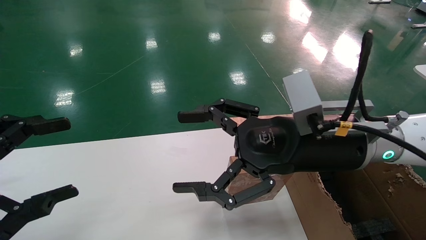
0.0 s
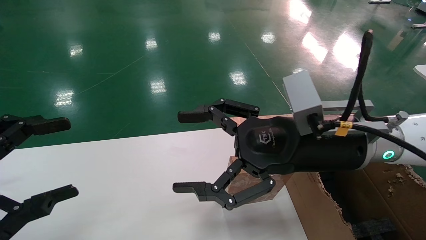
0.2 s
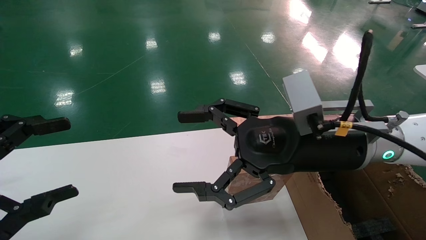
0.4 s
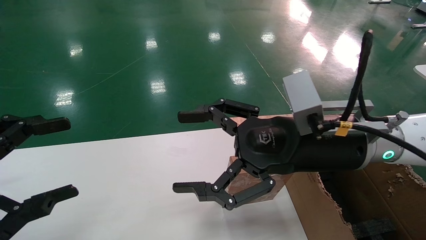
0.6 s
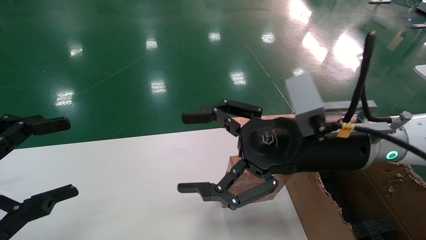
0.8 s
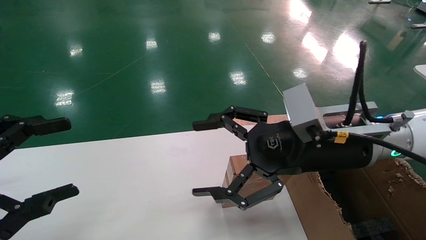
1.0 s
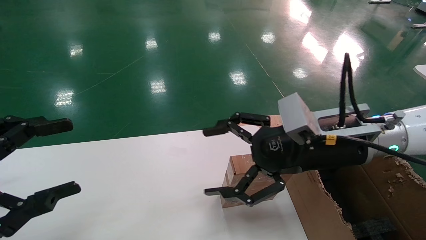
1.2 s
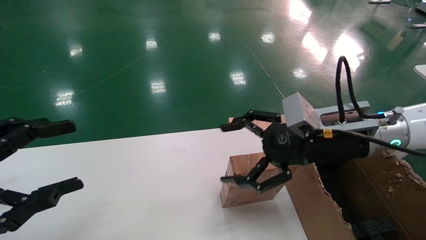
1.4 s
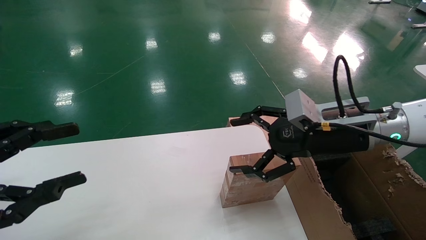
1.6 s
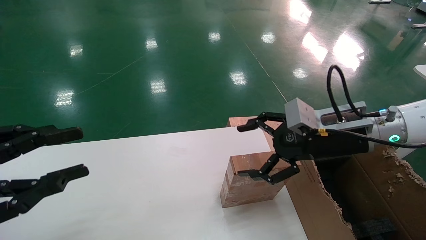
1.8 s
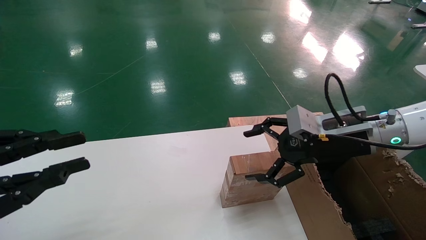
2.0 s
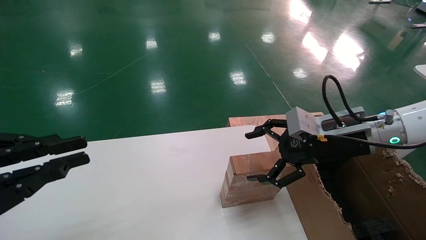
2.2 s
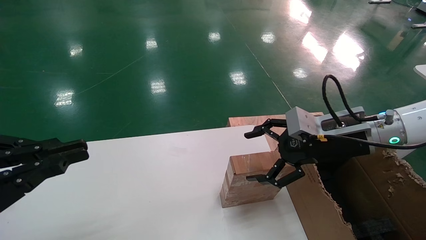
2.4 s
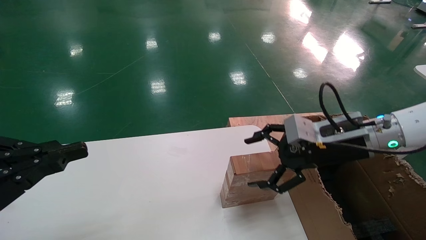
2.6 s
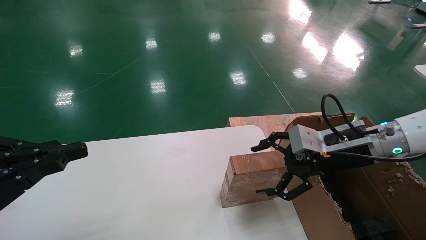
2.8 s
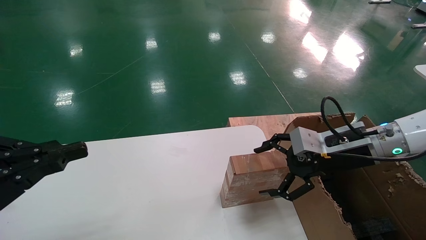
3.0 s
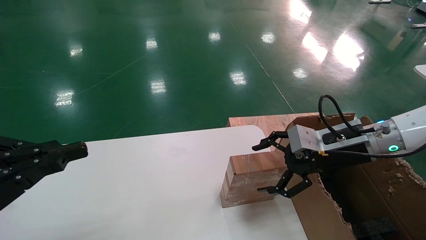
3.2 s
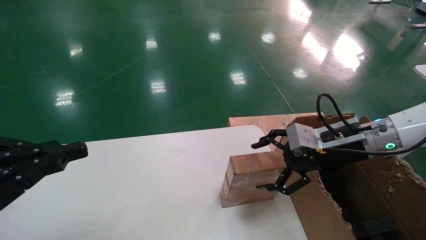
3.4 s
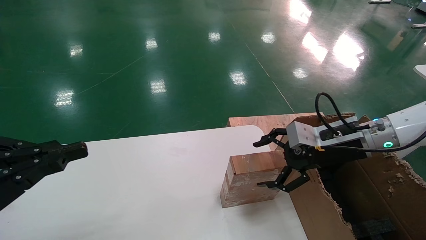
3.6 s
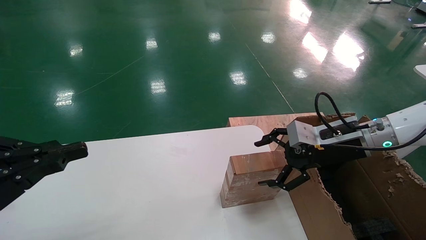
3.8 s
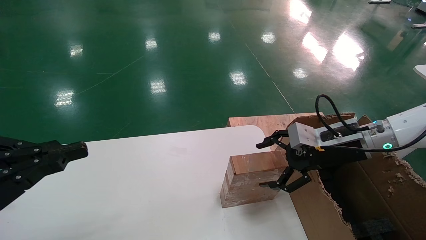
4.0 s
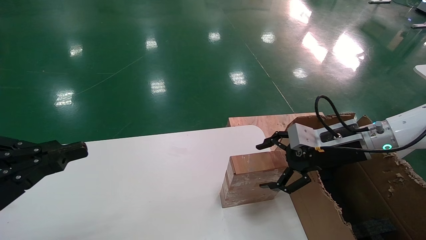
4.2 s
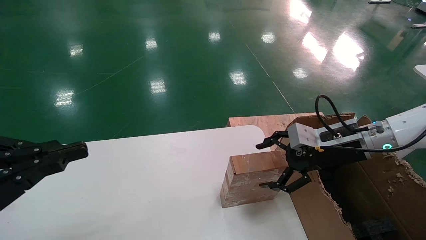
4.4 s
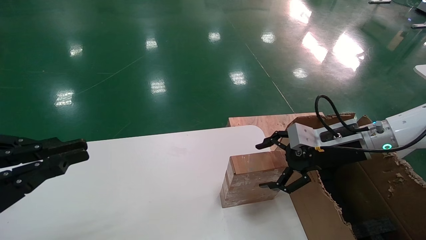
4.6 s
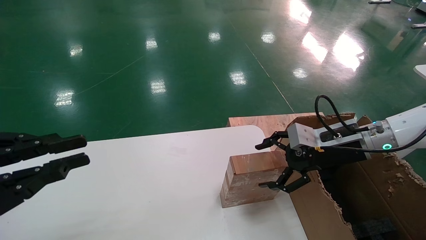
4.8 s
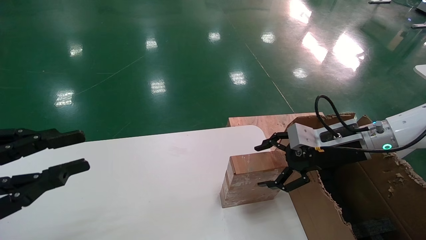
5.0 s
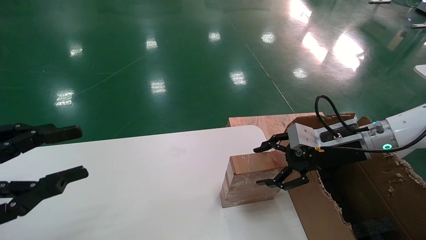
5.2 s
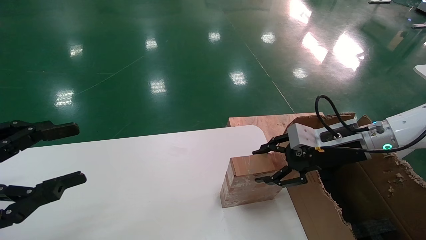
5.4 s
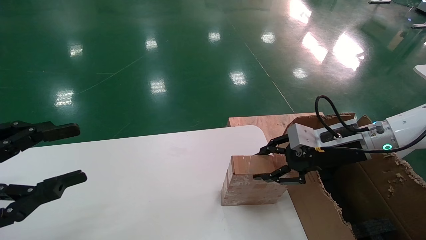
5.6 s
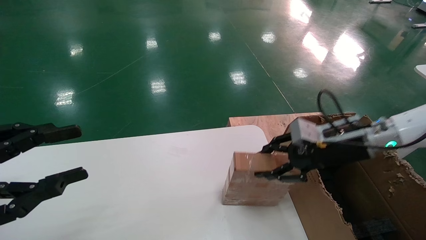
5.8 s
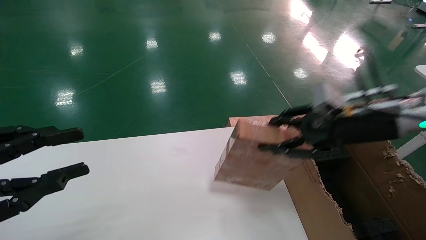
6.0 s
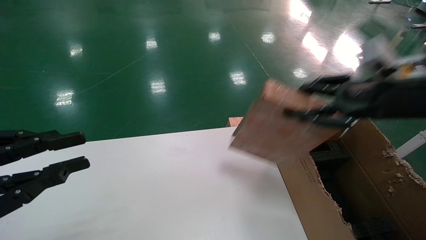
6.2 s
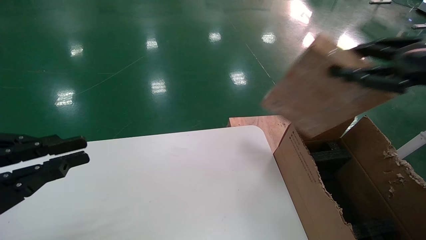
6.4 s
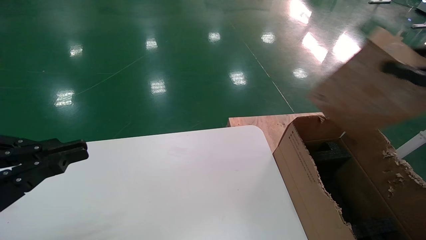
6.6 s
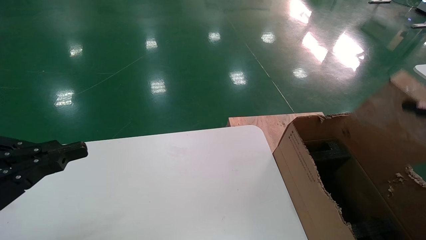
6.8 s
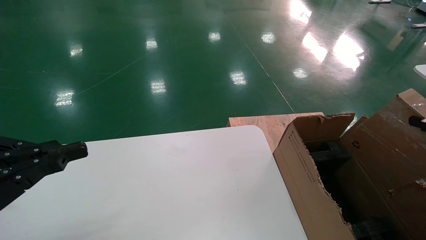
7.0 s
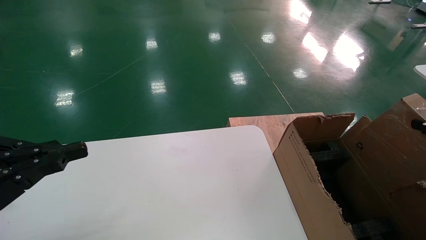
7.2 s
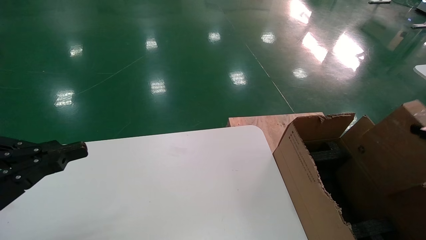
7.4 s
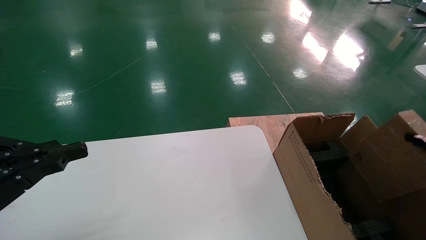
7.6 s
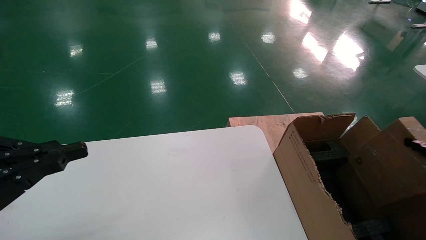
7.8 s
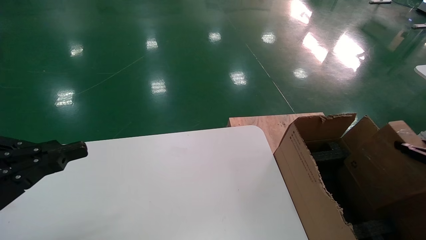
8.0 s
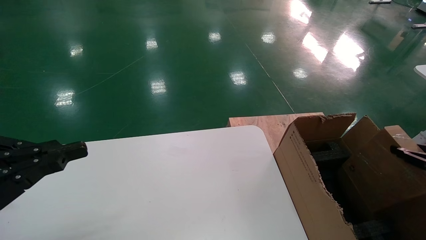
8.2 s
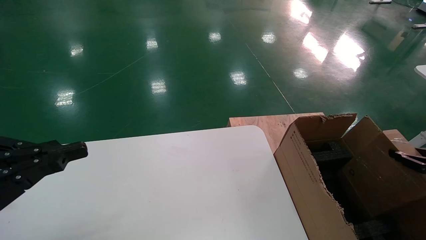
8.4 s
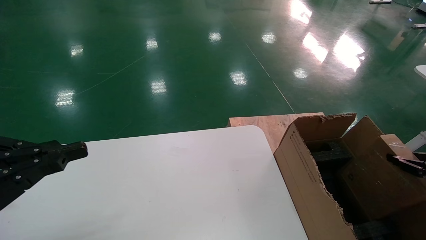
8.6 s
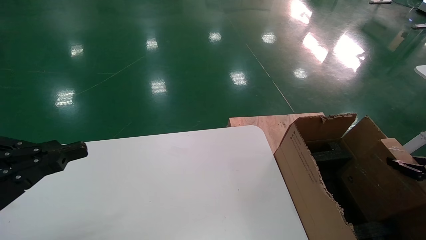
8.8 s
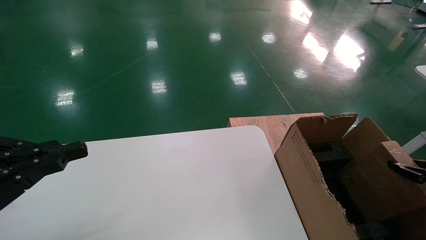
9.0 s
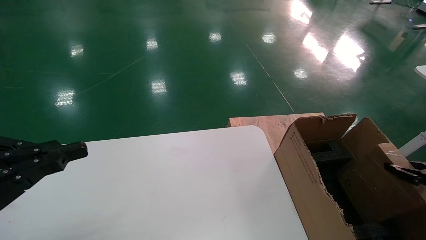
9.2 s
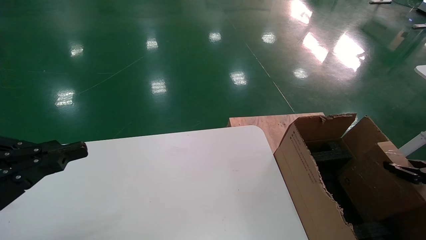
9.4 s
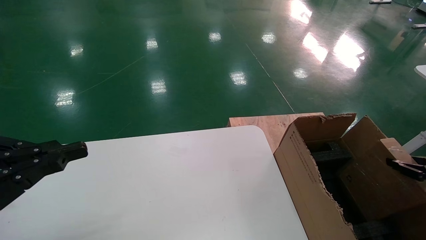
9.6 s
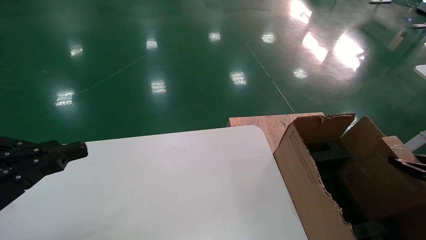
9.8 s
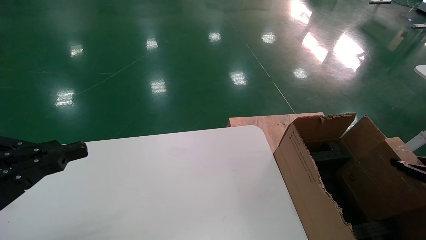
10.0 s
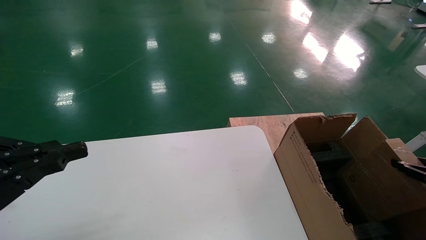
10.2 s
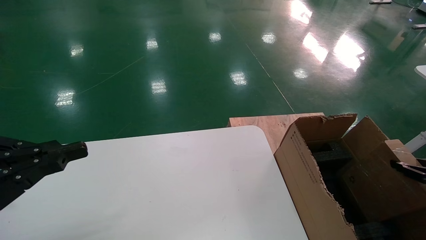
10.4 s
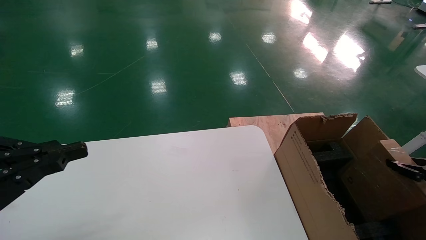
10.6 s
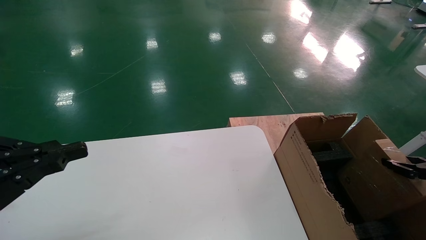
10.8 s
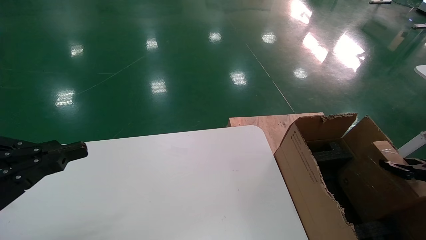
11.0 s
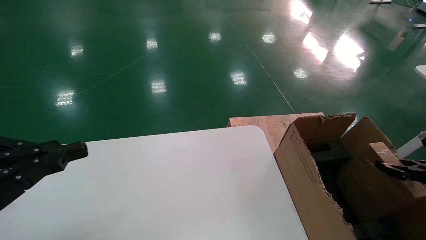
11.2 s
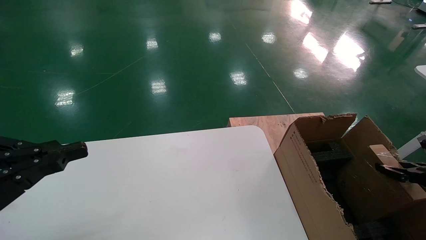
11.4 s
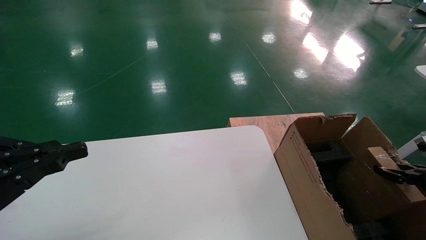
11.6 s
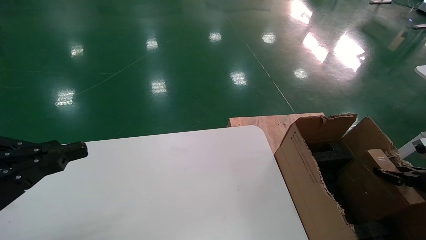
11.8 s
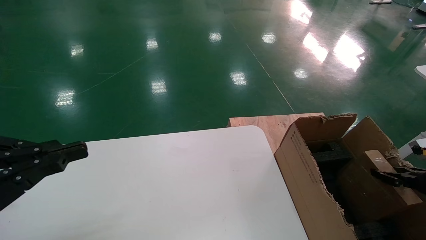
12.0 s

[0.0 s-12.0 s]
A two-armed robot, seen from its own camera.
Task of the whole recording: put the box on the table into the big box.
Step, 1.2 to 5.6 s: Pick up the mouse and the power cord paper box.
0.0 to 1.6 s: The right gripper goes about 10 cm to the right.
1.6 to 3.0 s: The right gripper moves roughly 5 cm; the left gripper closes.
3.0 to 4.4 s: There are only small adjustments of the grippers.
4.4 to 6.0 s: The left gripper opens its fingers; the right gripper goes roughly 10 cm upward, and closes.
6.0 to 7.6 s: The left gripper closes up. The right gripper moves to the right and backward, roughly 25 cm.
7.6 to 9.0 s: The right gripper goes about 10 cm downward.
10.4 to 12.0 s: The right gripper ends up about 5 cm from where it was.

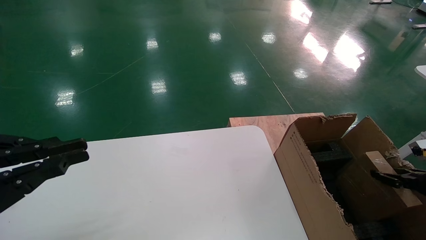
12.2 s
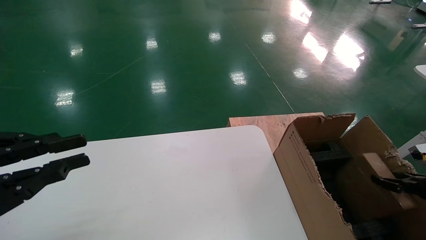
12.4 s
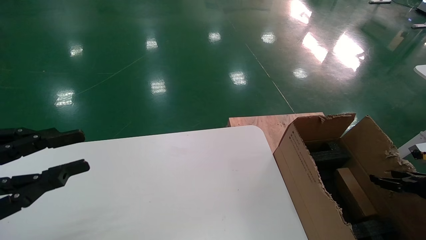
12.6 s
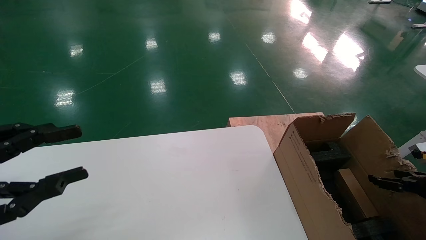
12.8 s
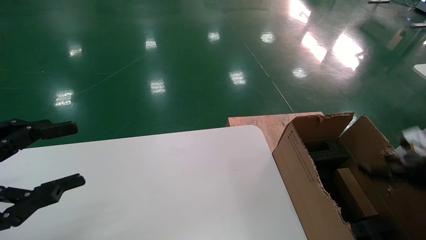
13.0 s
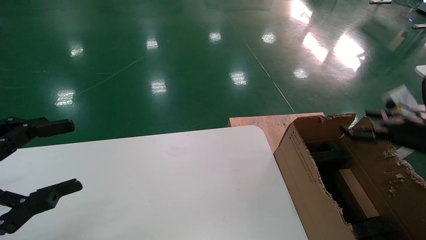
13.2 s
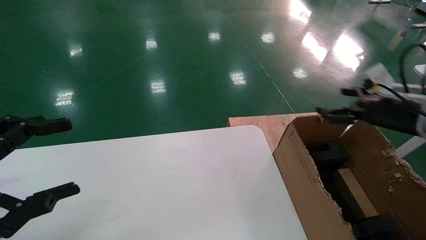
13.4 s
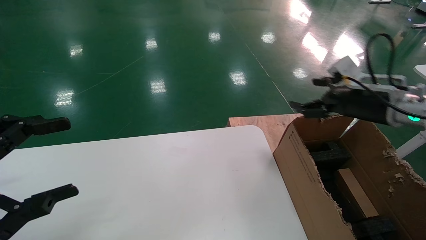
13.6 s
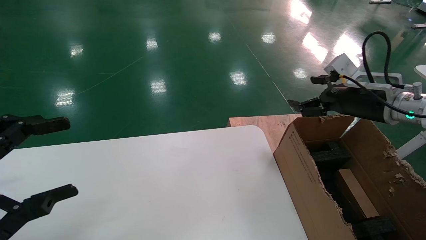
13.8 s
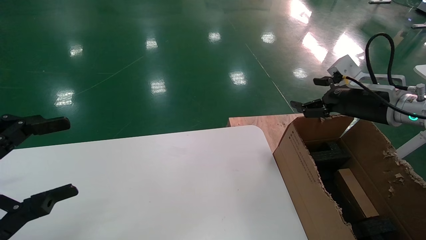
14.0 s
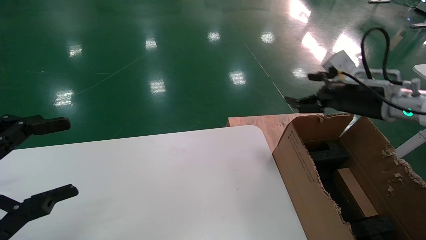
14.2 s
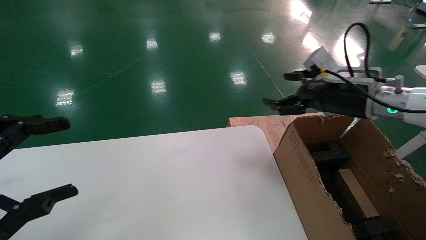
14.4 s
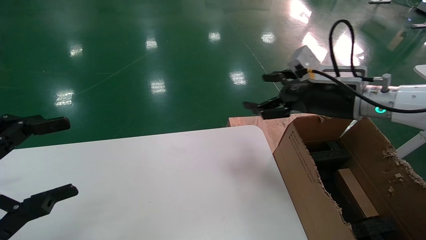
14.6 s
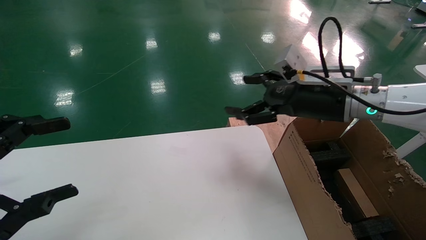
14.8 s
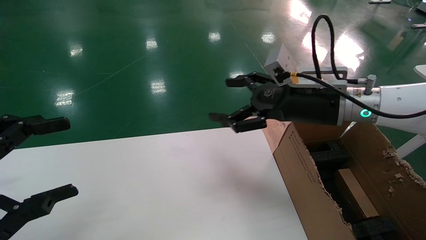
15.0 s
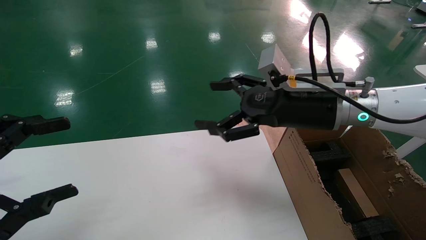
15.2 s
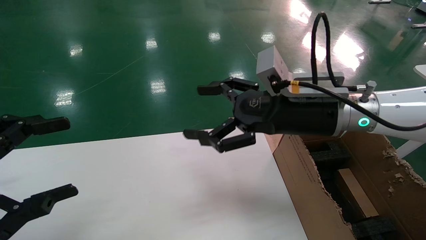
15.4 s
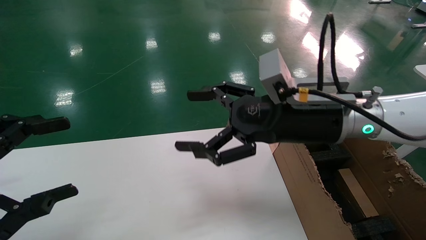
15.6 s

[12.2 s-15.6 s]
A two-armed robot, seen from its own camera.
Task of the whole recording: put the box on the table into the big box.
12.2 to 13.8 s: The right gripper is displaced upward, to the left and forward by roughly 25 cm, and opens up. Meanwhile the left gripper opens.
13.8 to 15.6 s: The right gripper heads to the left, covering some 20 cm.
